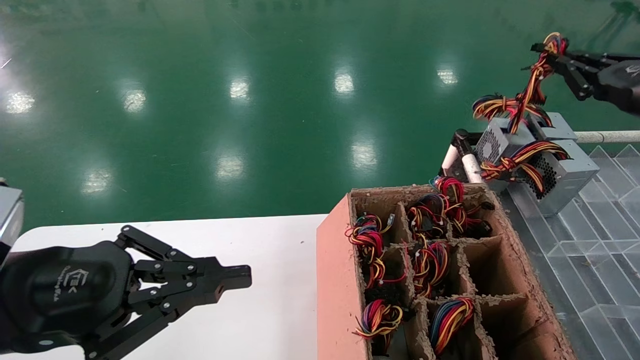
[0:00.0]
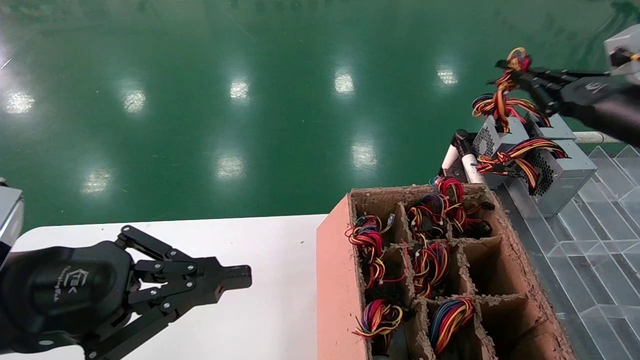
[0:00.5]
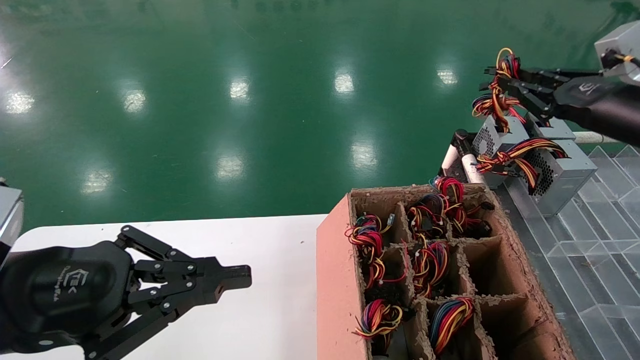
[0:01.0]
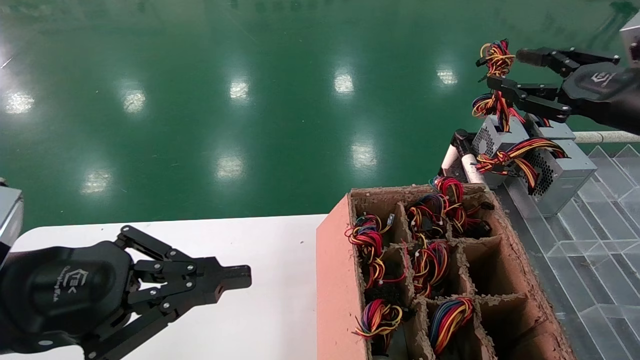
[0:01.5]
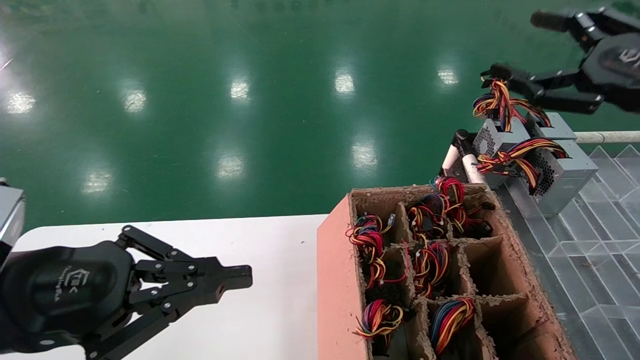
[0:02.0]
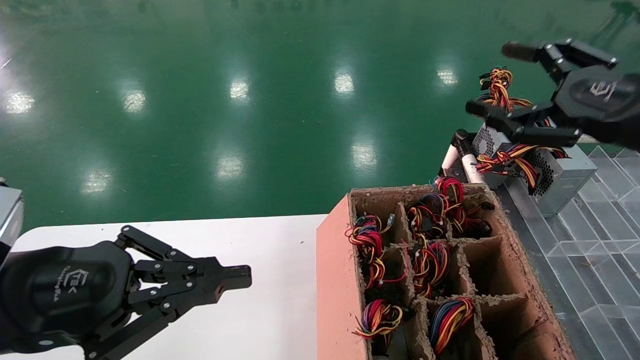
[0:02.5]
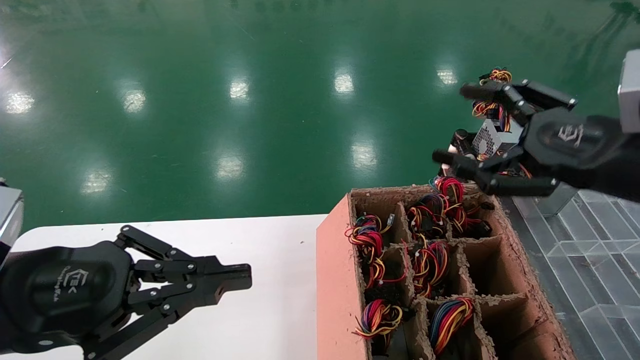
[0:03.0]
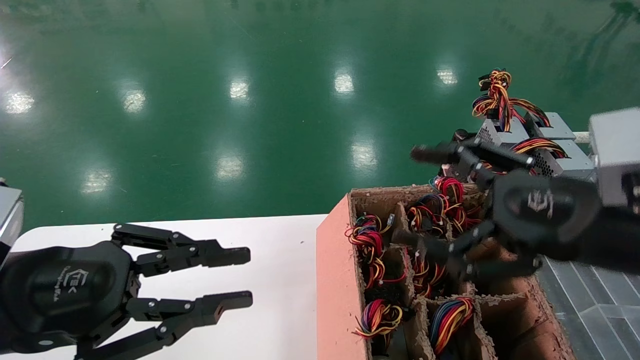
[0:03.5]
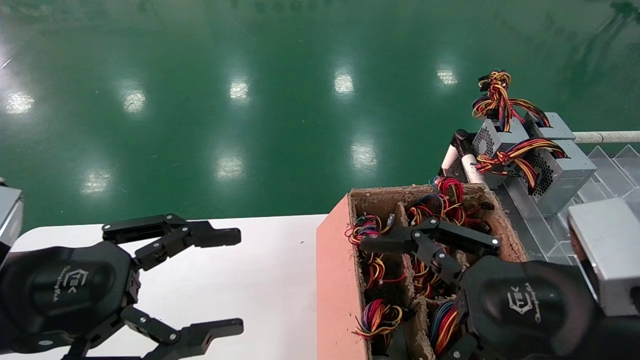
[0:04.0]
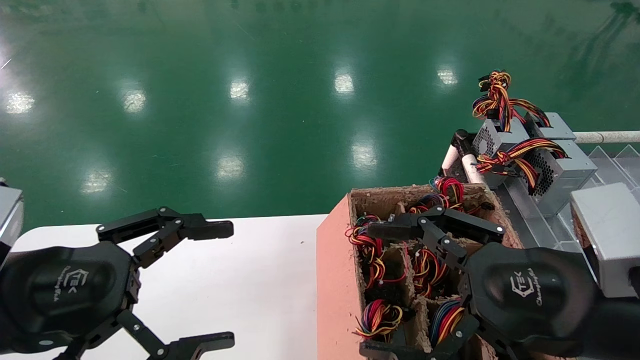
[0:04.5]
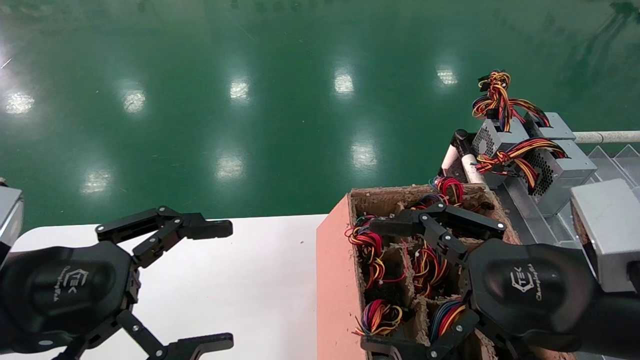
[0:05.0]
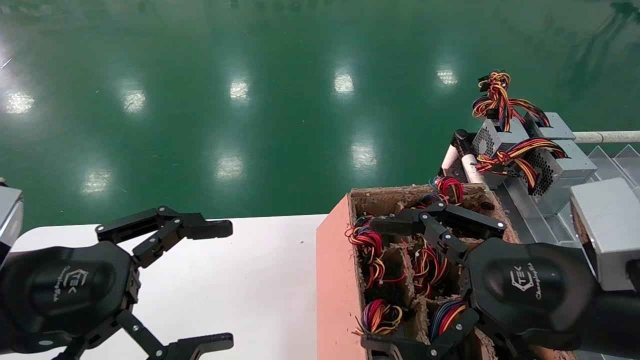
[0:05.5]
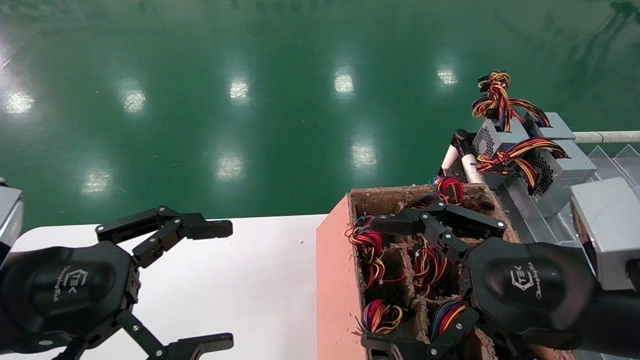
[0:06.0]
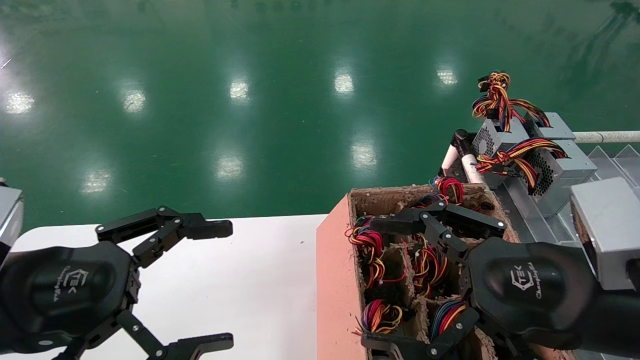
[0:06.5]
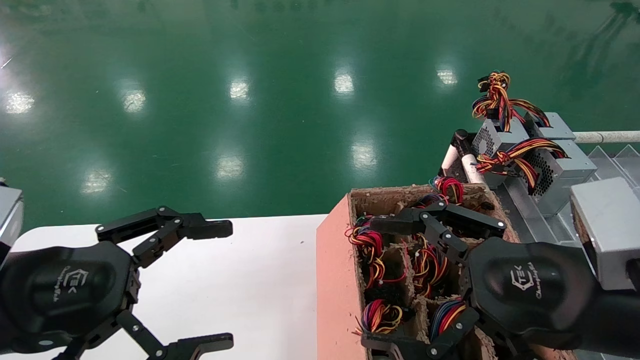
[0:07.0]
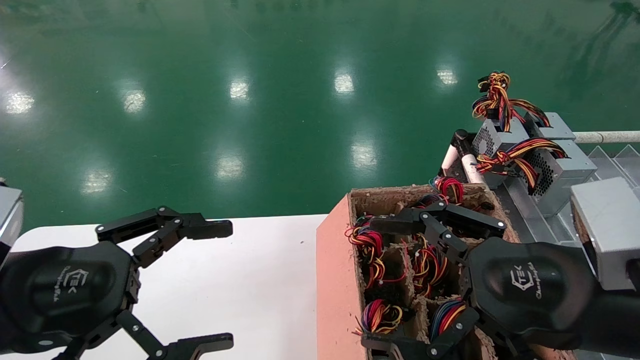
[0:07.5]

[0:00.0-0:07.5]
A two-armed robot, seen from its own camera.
0:00.0 to 0:02.0: The right gripper is displaced backward and to the left by about 10 cm, and opens its fingers.
0:02.0 to 0:04.0: The left gripper opens up. Meanwhile the right gripper heads to the left, downward and backward, covering roughly 20 cm.
0:04.0 to 0:05.5: The left gripper opens.
0:05.5 to 0:07.5: Both grippers stay about where they are.

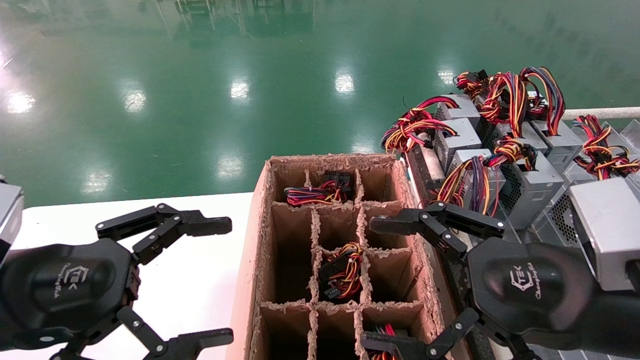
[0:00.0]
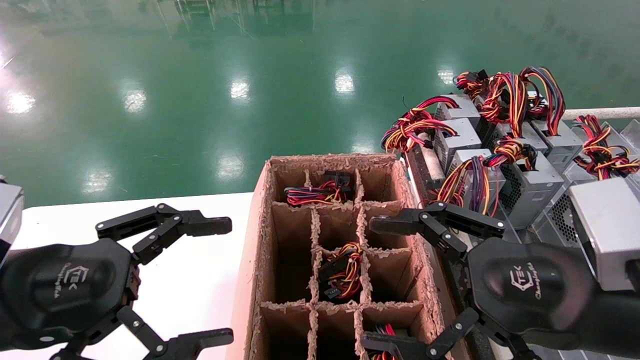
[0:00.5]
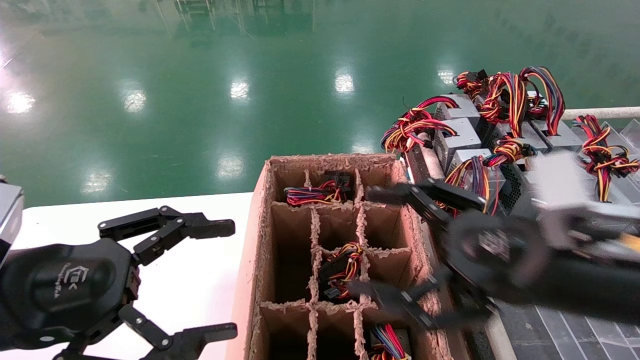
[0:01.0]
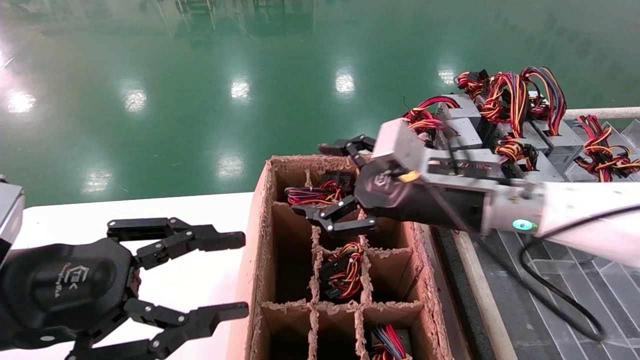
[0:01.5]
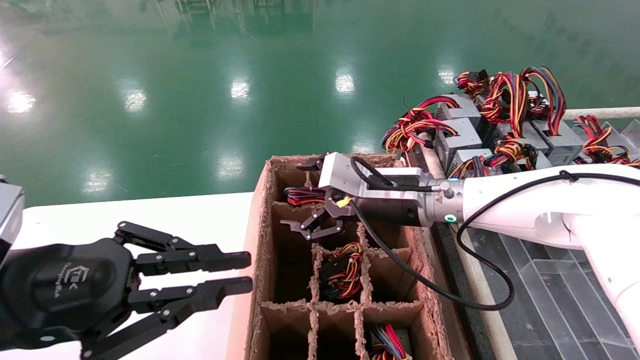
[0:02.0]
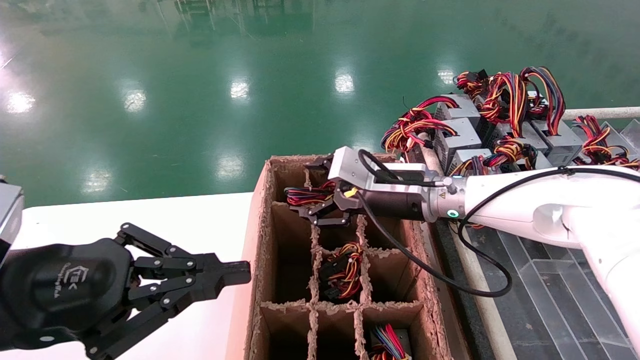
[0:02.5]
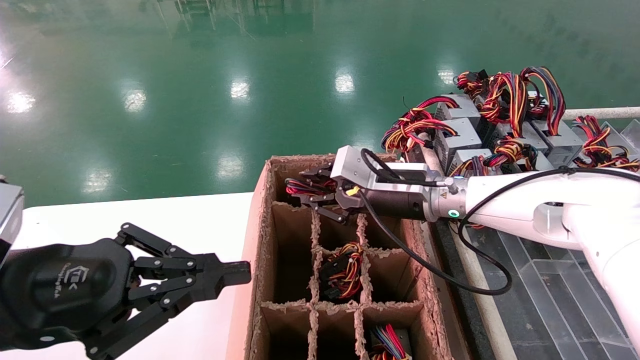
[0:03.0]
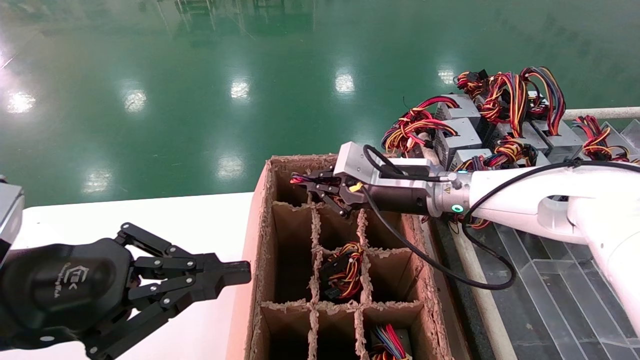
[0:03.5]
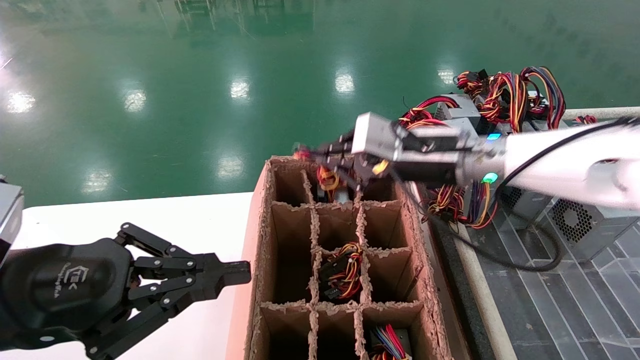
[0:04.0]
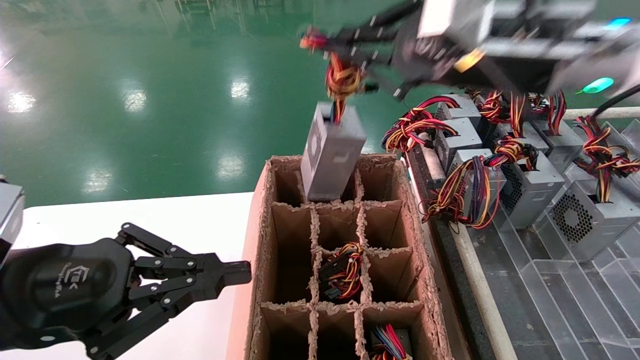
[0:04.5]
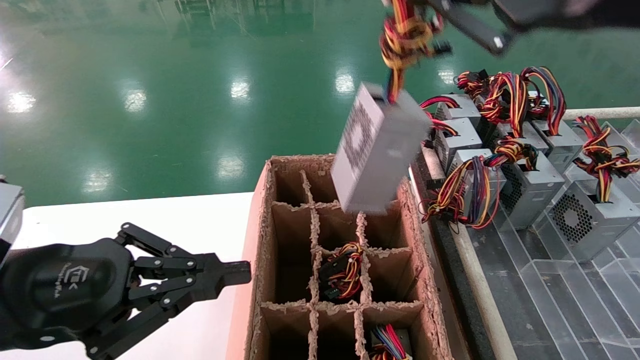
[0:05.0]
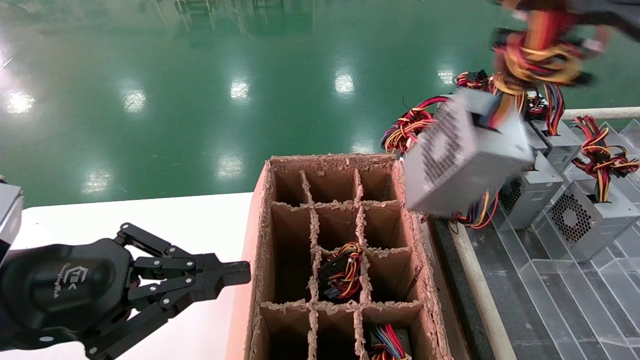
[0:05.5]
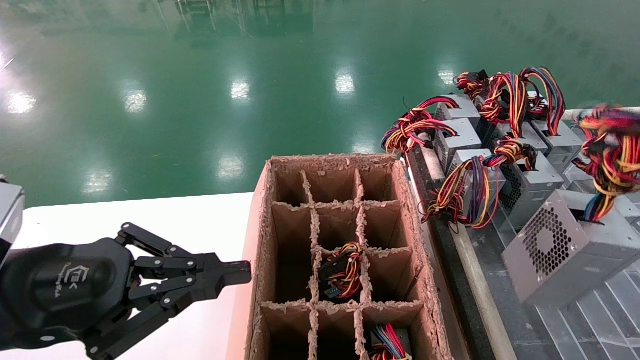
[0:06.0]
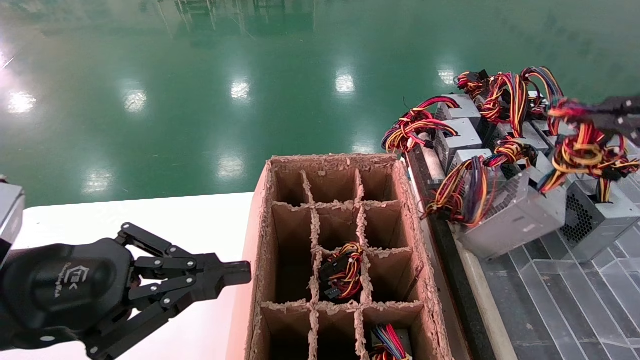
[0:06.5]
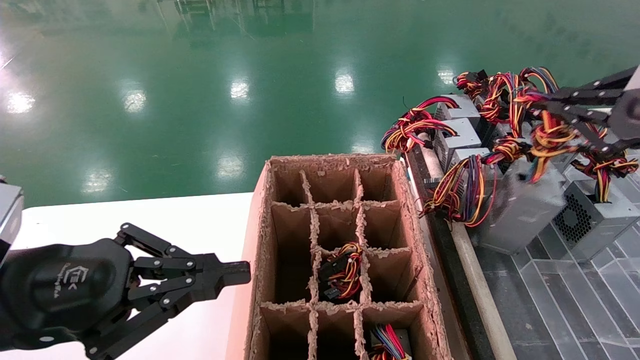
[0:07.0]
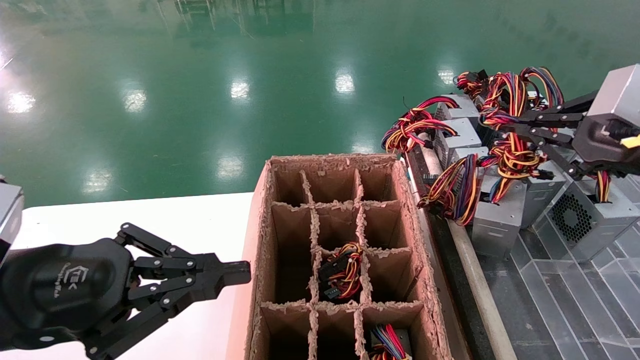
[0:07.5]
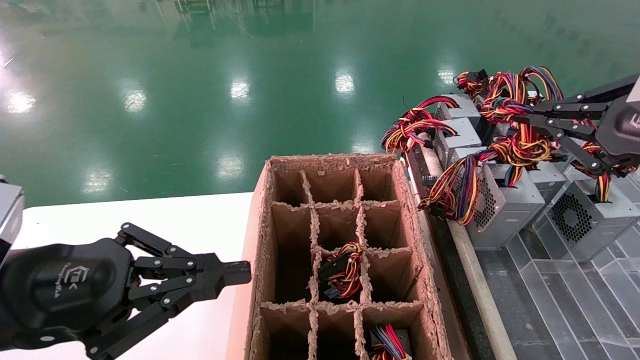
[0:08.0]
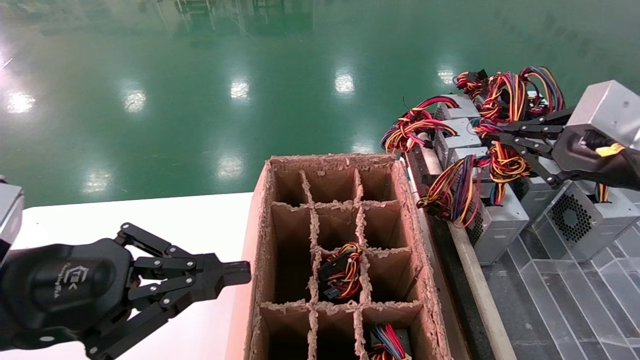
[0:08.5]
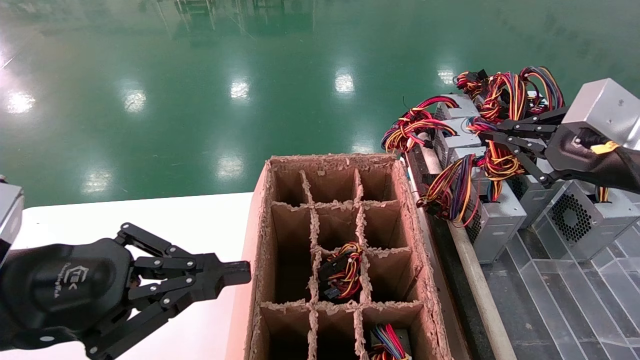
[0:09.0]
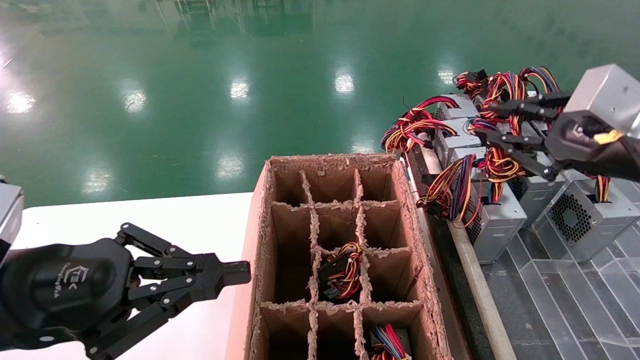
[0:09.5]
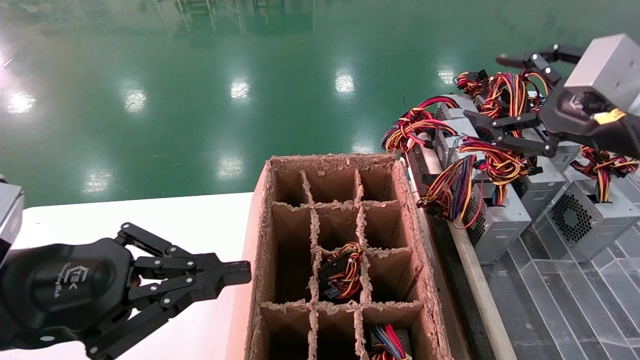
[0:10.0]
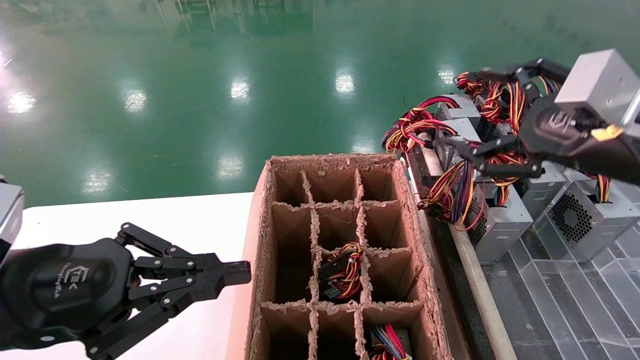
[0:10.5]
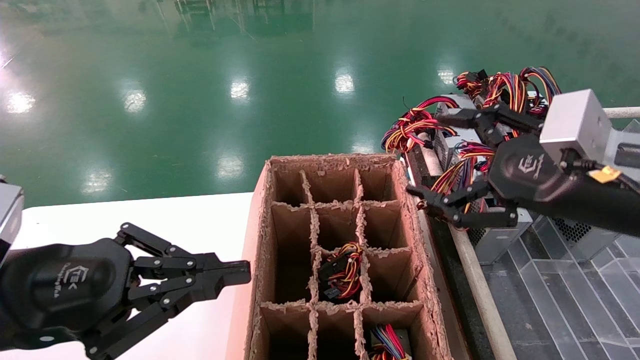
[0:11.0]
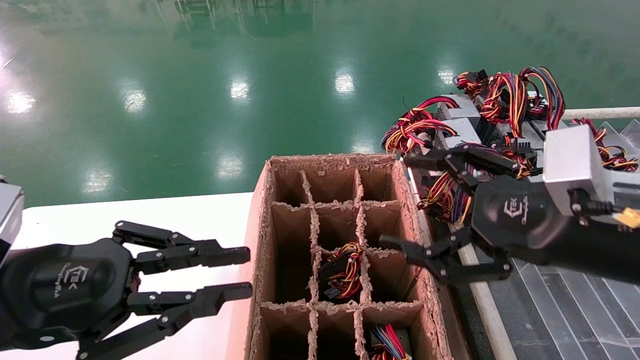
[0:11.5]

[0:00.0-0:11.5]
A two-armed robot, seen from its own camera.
Step, 0:01.5 to 0:03.5: Grab the main unit power supply from the containment box.
Step, 0:04.0 to 0:09.5: Place the main unit power supply in the designated area.
0:00.0 to 0:02.0: The left gripper closes its fingers; the right gripper is displaced forward and to the left by about 25 cm.
0:02.0 to 0:04.0: The right gripper moves upward, about 5 cm, and closes its fingers.
0:04.0 to 0:06.0: The right gripper travels backward and to the right by some 35 cm.
0:06.0 to 0:07.5: The right gripper is displaced forward by about 15 cm.
0:07.5 to 0:09.5: The grippers move only a little.
0:09.5 to 0:11.5: The right gripper moves to the left and downward, roughly 10 cm, and opens its fingers.

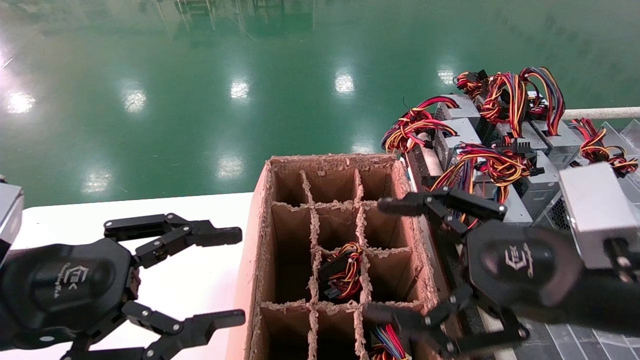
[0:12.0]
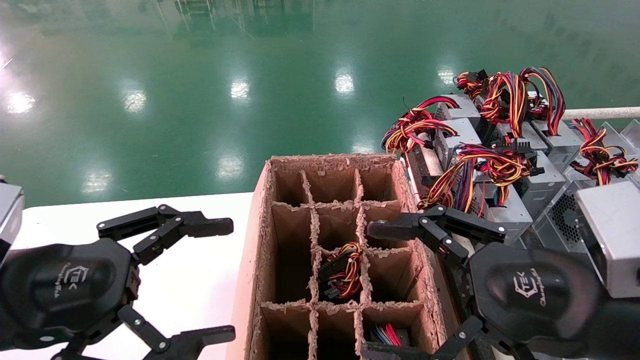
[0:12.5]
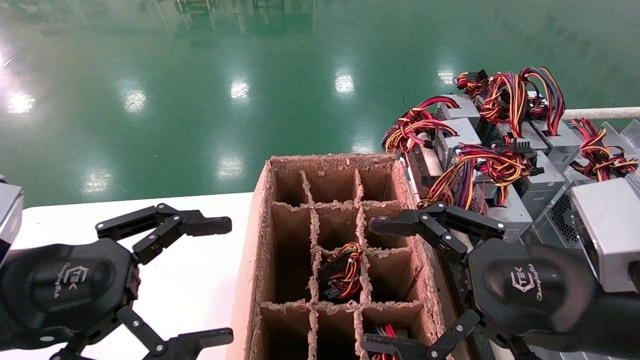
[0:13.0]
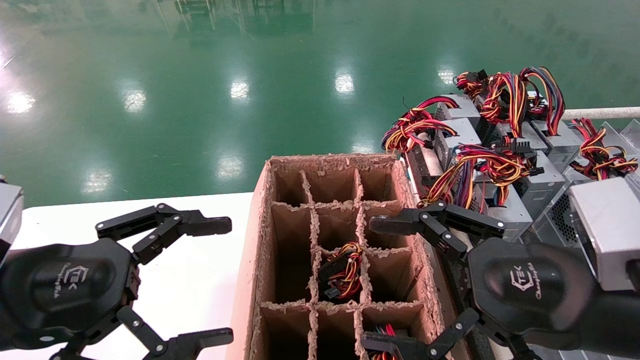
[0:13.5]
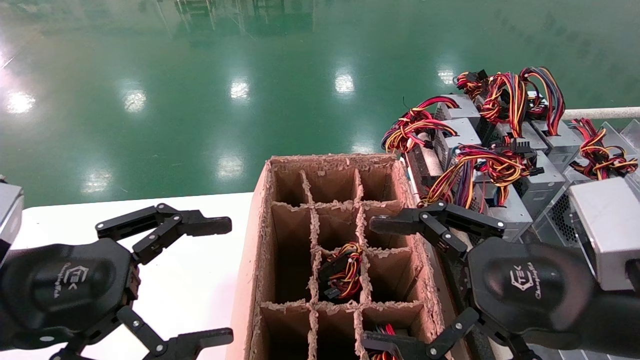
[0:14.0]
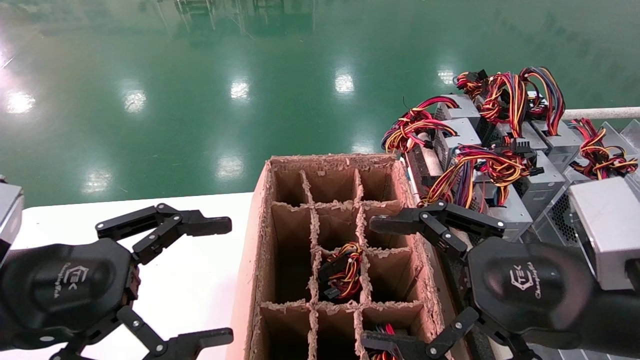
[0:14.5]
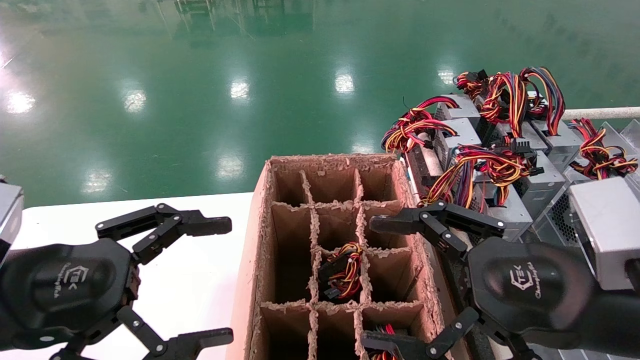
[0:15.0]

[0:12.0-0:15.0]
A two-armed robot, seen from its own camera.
0:12.0 to 0:13.5: The left gripper opens its fingers.
0:13.5 to 0:15.0: Both grippers stay put.
